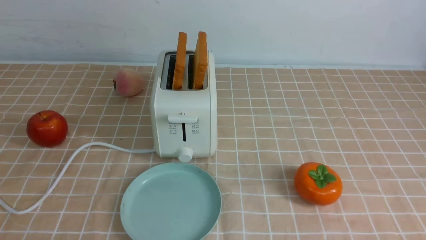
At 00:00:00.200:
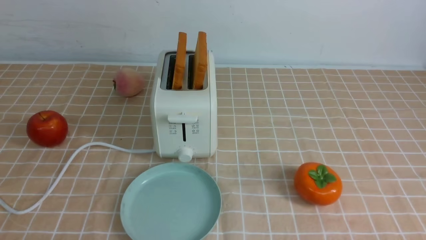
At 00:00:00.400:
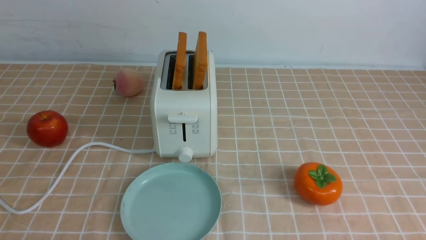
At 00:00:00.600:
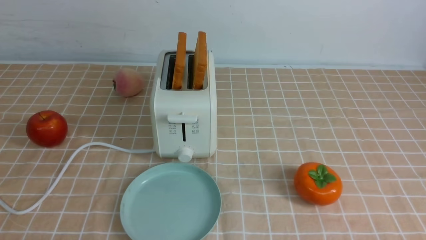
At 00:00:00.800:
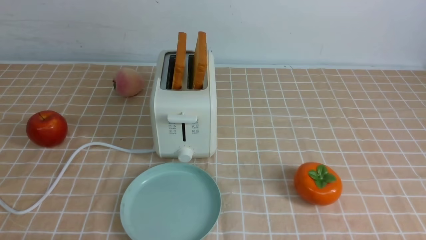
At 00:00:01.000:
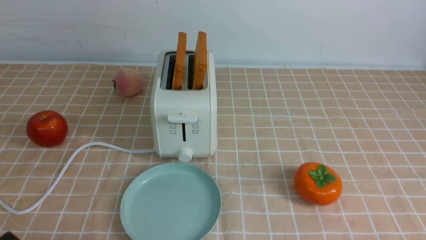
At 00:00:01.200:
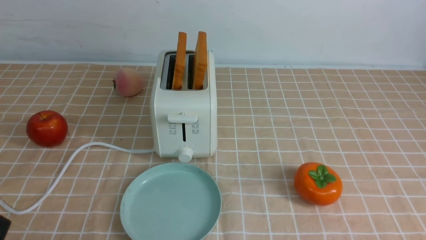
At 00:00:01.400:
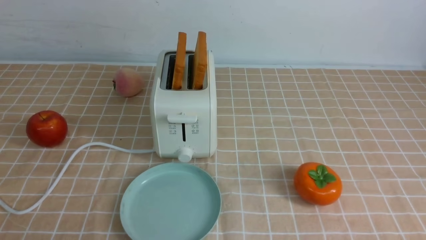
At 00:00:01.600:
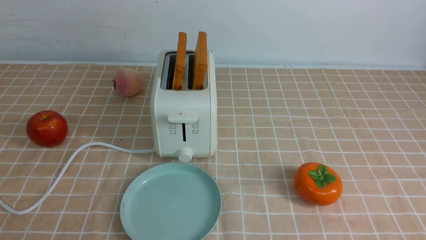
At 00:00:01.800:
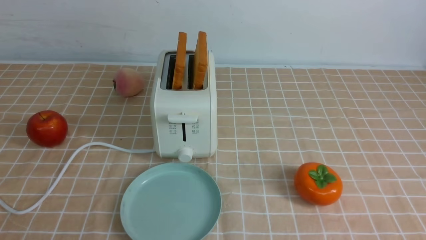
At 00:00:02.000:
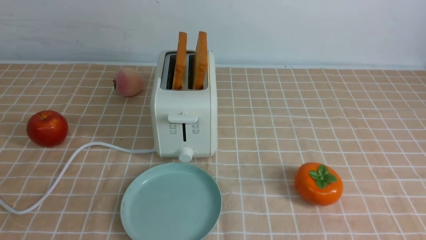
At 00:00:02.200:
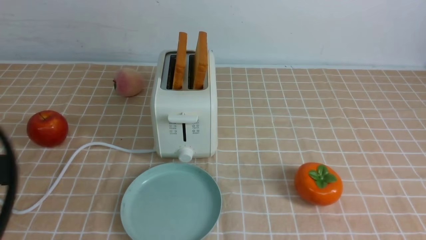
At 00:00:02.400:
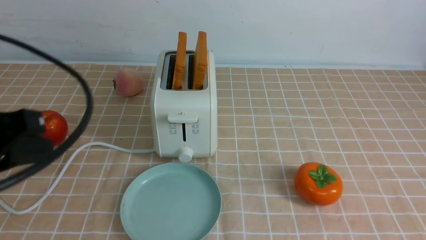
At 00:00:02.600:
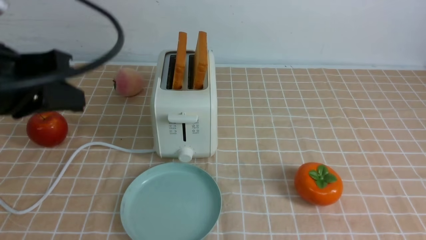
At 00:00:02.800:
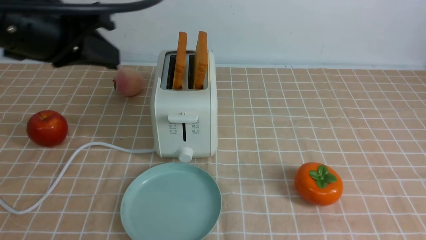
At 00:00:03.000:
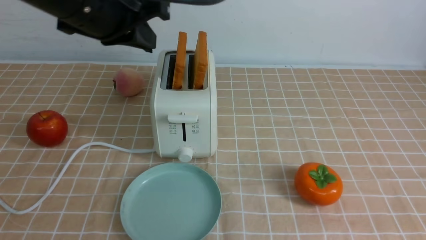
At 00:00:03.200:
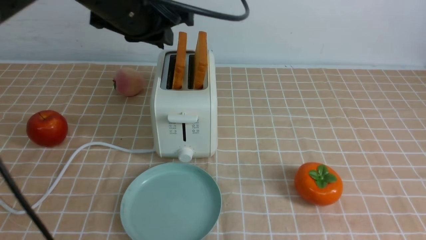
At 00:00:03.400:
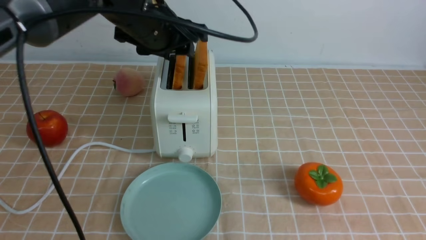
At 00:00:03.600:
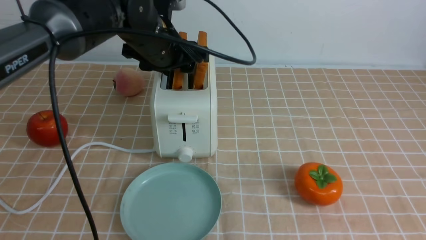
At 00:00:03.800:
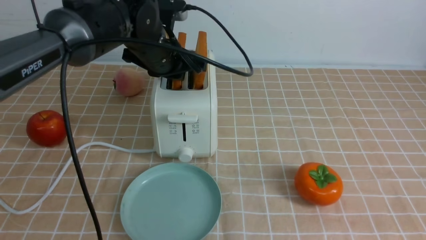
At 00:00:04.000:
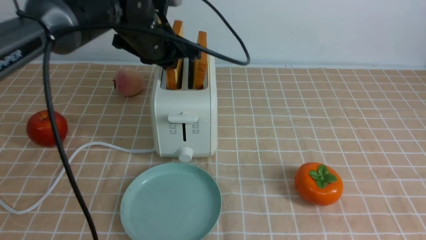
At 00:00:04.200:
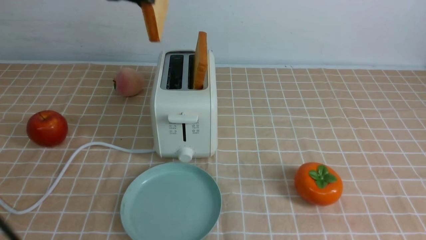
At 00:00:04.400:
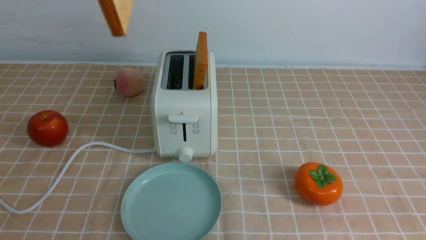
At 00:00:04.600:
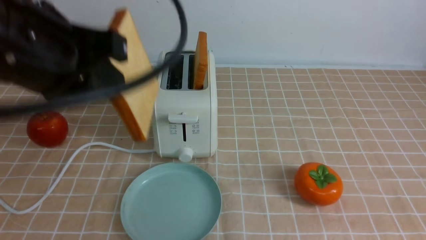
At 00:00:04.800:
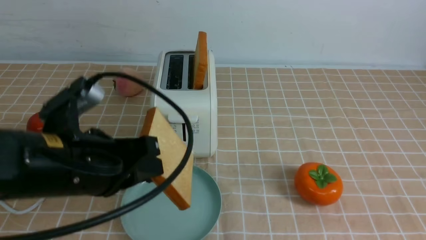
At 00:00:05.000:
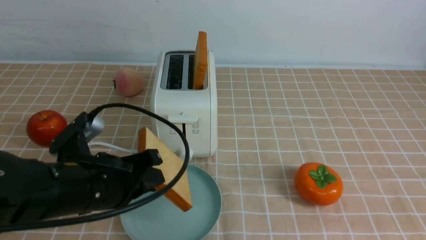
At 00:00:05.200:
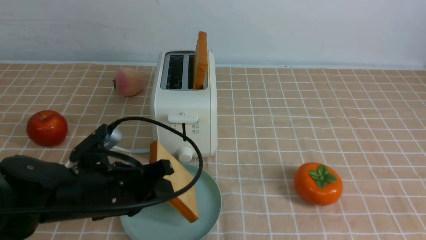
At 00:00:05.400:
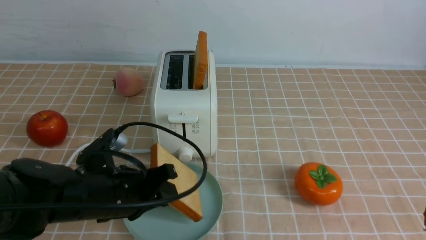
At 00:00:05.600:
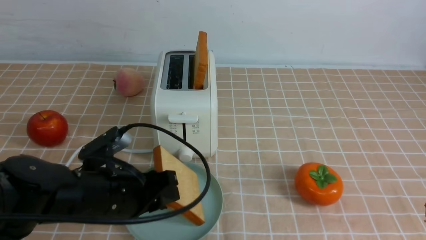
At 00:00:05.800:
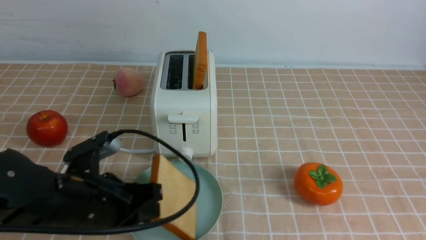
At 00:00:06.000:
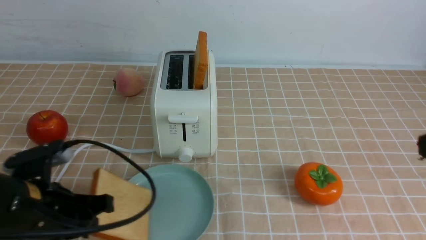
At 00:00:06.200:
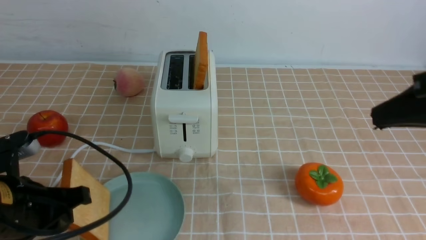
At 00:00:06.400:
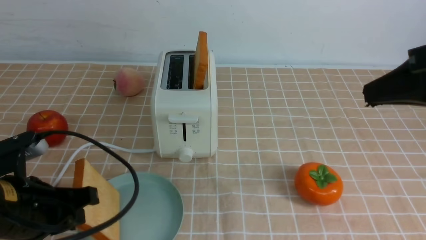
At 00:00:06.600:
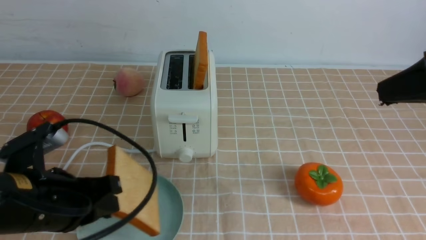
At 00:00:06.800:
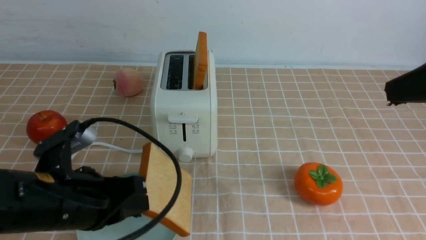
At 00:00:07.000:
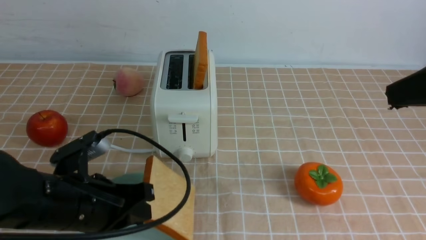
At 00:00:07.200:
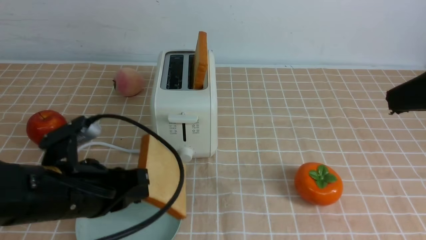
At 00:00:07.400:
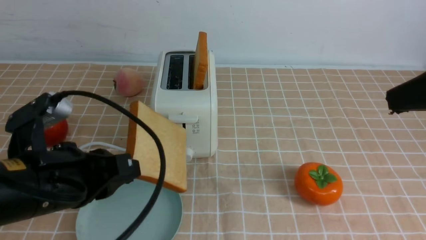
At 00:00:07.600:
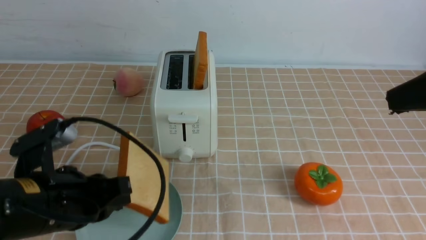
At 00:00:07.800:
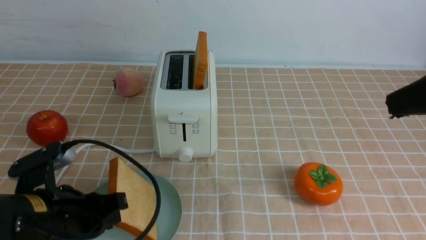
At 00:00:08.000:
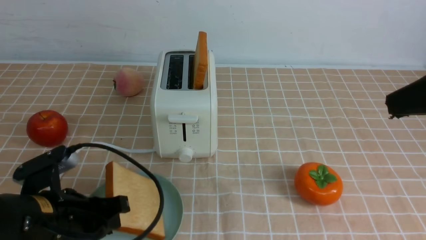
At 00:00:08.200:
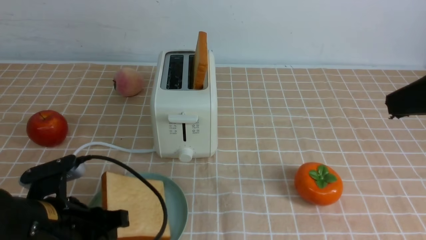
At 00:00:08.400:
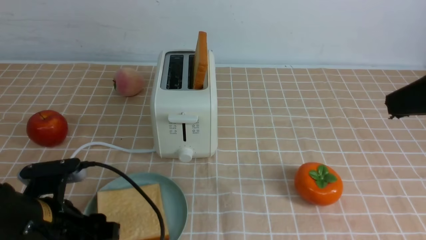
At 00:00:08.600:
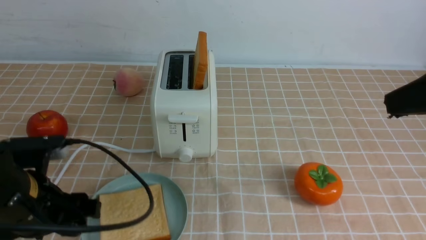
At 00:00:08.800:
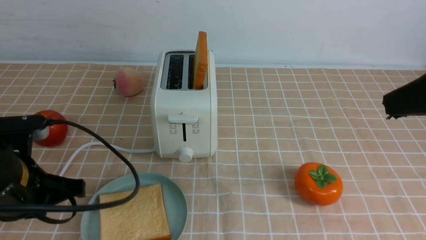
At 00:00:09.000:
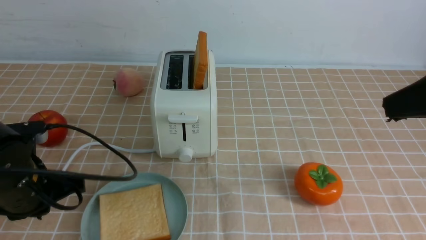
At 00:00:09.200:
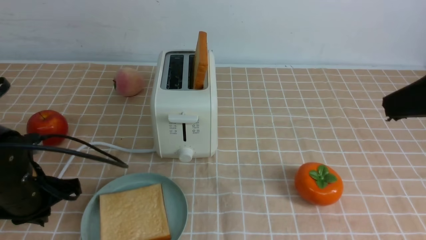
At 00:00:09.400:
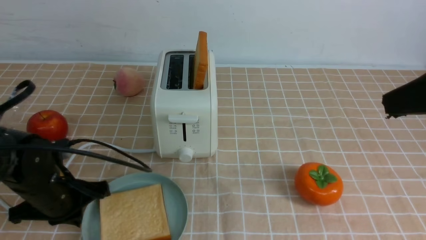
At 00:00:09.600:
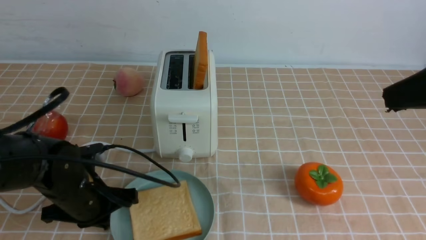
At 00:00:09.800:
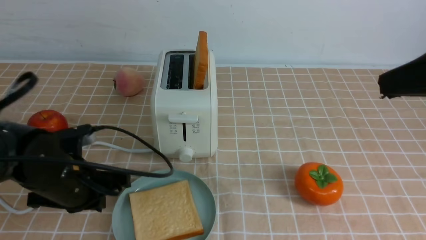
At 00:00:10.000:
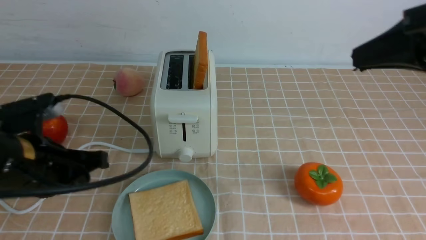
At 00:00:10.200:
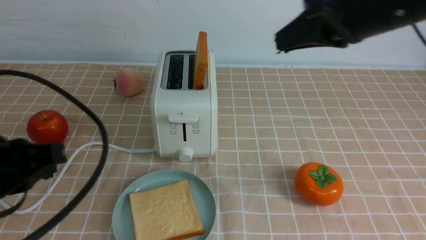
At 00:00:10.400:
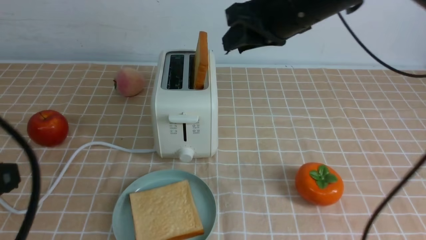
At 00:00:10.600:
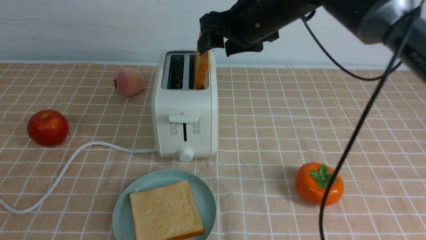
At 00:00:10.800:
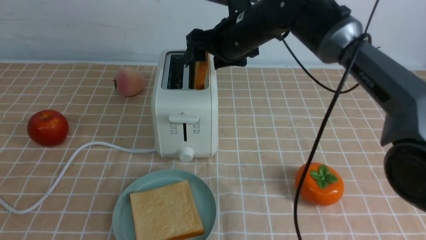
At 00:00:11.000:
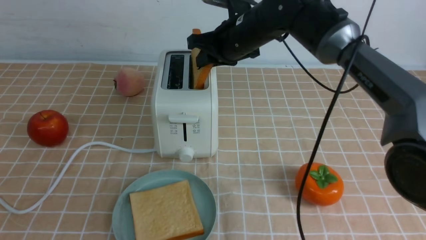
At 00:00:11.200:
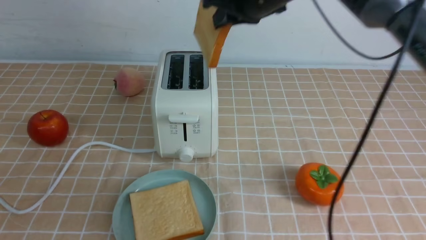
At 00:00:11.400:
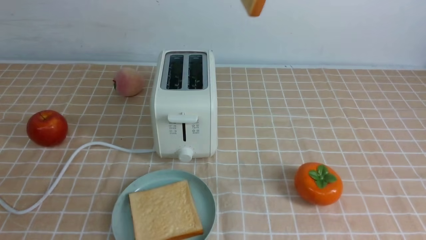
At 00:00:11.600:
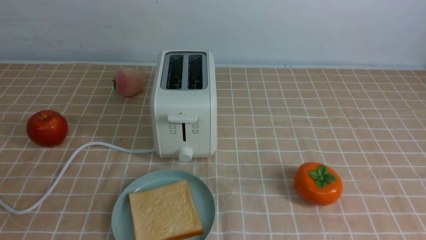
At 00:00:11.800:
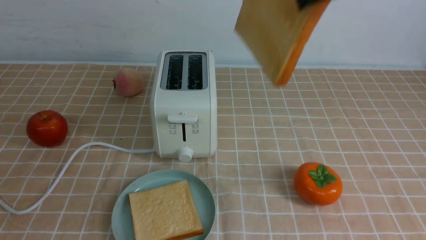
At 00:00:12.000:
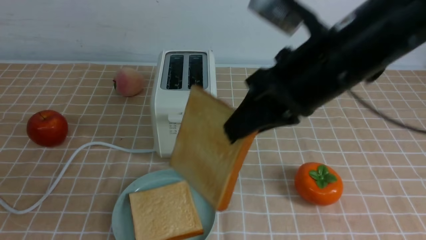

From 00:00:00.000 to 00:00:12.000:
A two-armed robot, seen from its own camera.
Task of the whole recording: take toasted bread from bread machine on light coffee tablecloth place on plate.
Step, from 00:00:00.000 to 00:00:04.000: use the left arm to take out a slice of bread.
Step, from 00:00:04.200 to 00:00:08.400: use the left arm to put a slice of bread into the empty plate.
Step, from 00:00:08.600 to 00:00:11.000: use the right arm to take out a slice of bread.
From 00:00:01.600 to 00:00:03.000: The right gripper travels upward by roughly 10 cm, and closes; the left gripper travels forward, upward and to the right by approximately 35 cm.
From 00:00:03.000 to 00:00:04.400: The left gripper goes some 5 cm backward, and opens, then closes again.
From 00:00:04.400 to 00:00:06.000: The right gripper travels upward and forward by about 10 cm. The left gripper goes approximately 25 cm downward.
From 00:00:07.600 to 00:00:09.000: The left gripper heads forward and to the left, covering approximately 5 cm, and opens and closes again.
From 00:00:09.000 to 00:00:10.400: The right gripper moves forward and to the left, about 25 cm, and opens up, while the left gripper travels backward and upward by roughly 20 cm.
From 00:00:10.400 to 00:00:12.000: The right gripper swings up and down, about 20 cm each way, with 2 reversals, and closes up, while the left gripper shifts some 5 cm backward.

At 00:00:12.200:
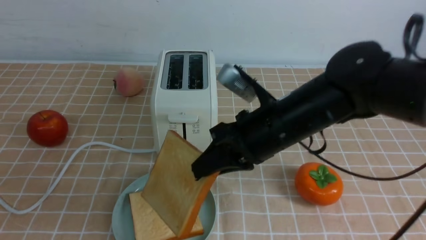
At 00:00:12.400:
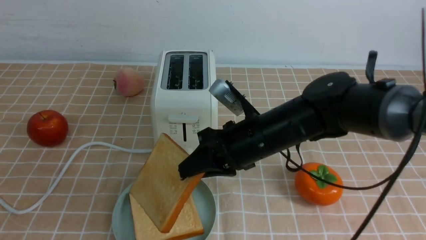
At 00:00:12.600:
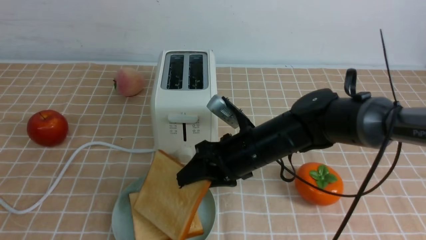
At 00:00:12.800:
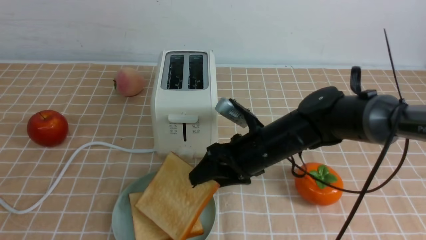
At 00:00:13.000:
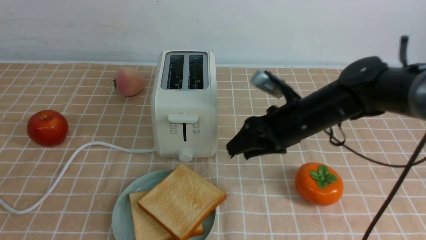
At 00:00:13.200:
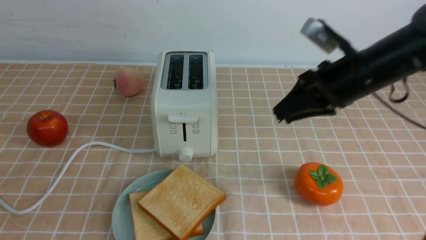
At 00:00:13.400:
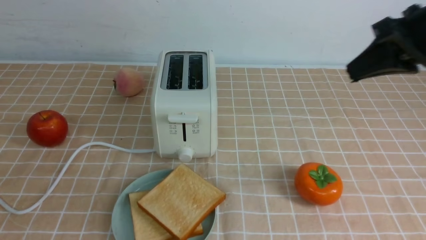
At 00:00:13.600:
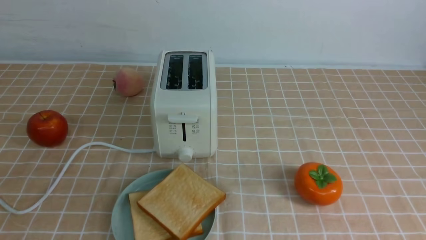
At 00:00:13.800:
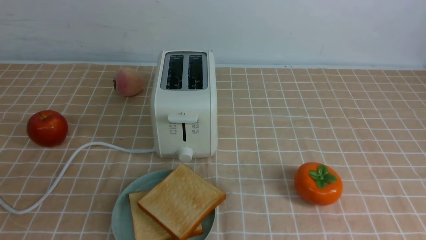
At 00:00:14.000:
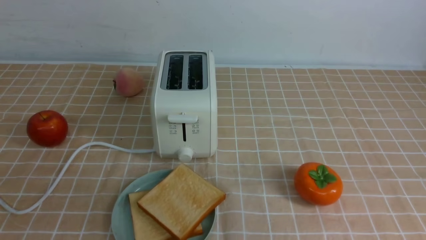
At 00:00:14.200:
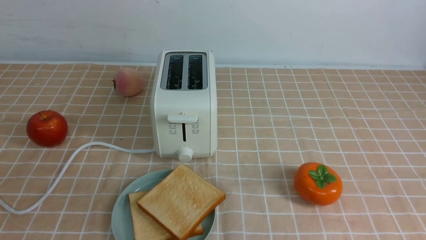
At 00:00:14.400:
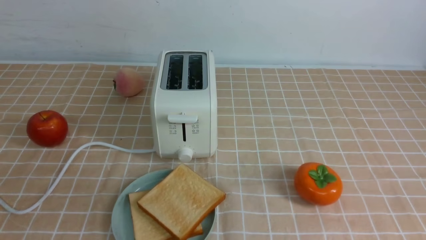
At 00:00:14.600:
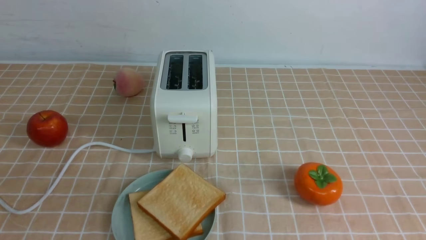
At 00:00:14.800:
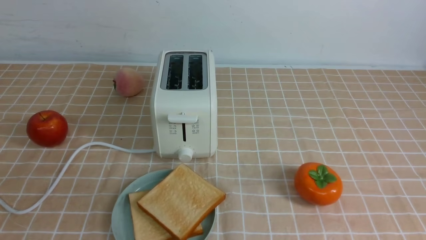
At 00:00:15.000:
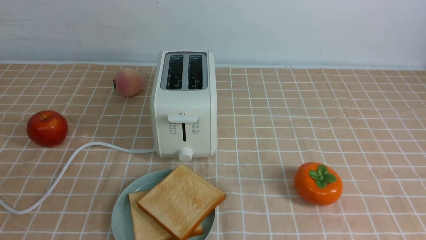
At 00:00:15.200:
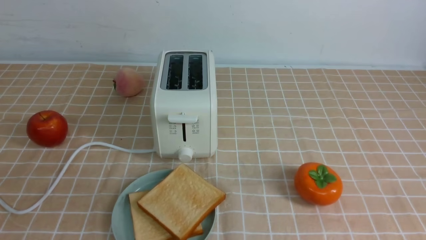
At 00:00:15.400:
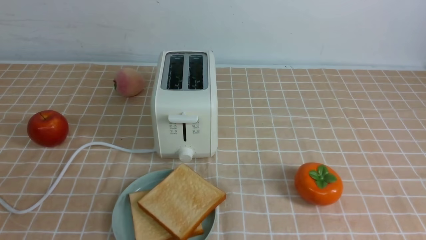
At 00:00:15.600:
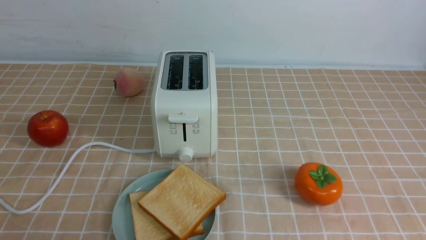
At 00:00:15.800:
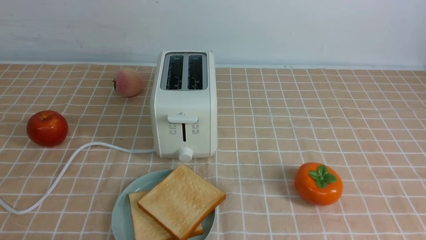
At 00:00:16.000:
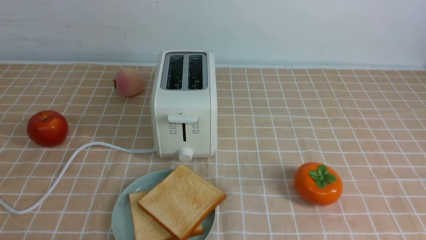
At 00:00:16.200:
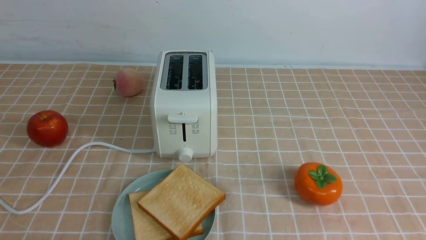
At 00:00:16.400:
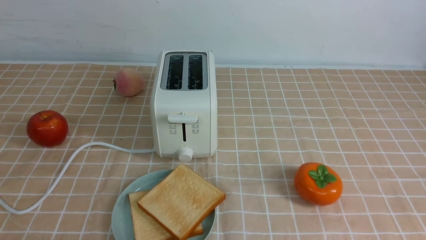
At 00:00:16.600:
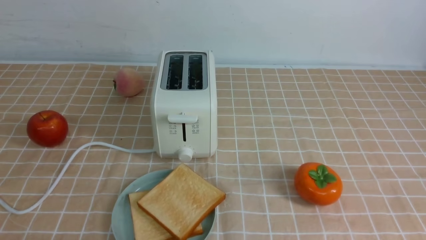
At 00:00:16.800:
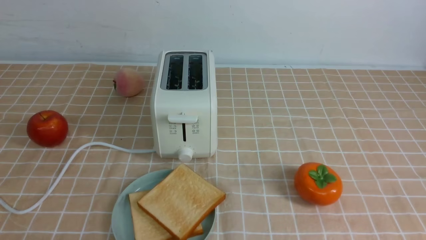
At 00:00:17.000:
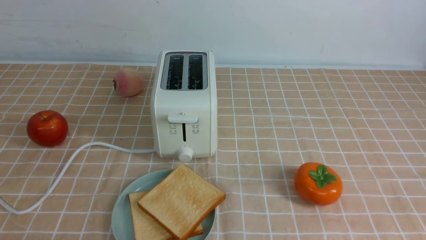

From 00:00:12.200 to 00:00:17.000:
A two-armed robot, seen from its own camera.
Task of the whole recording: take toasted bread from bread machine on light coffee tablecloth place on plate.
From 00:00:12.200 to 00:00:13.800: The right gripper goes approximately 30 cm to the right, backward and upward, and opens, then closes once more.
From 00:00:13.800 to 00:00:15.400: The right gripper heads downward and backward, covering roughly 15 cm.
